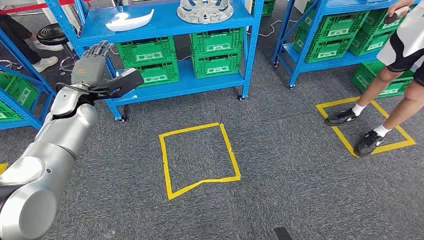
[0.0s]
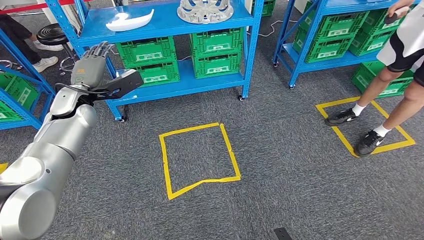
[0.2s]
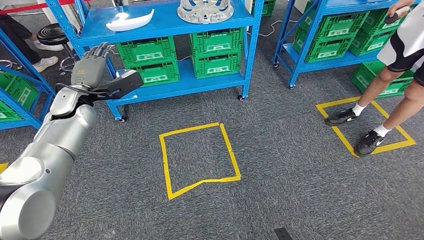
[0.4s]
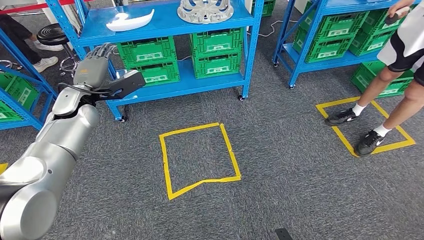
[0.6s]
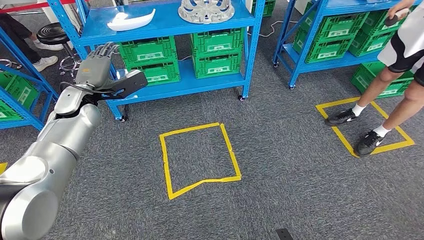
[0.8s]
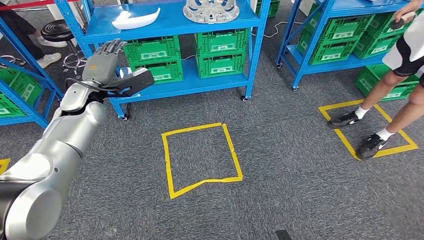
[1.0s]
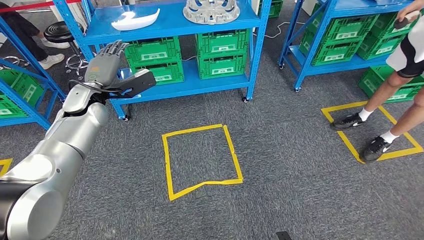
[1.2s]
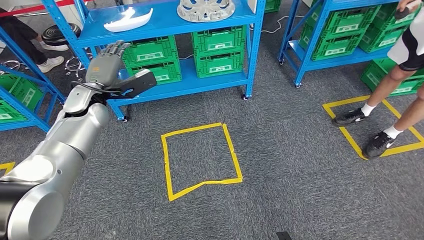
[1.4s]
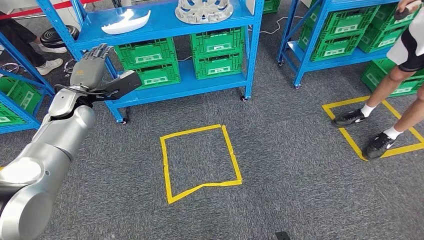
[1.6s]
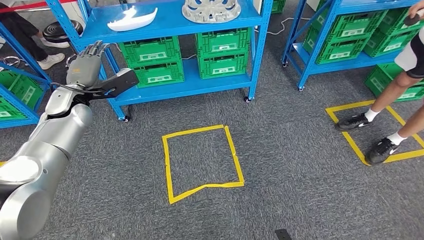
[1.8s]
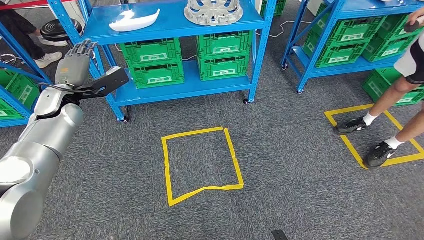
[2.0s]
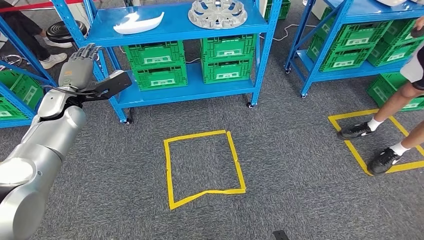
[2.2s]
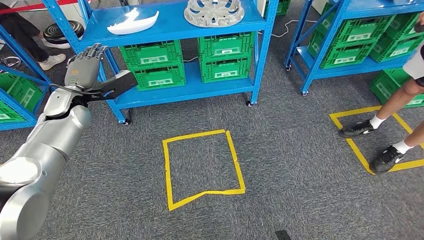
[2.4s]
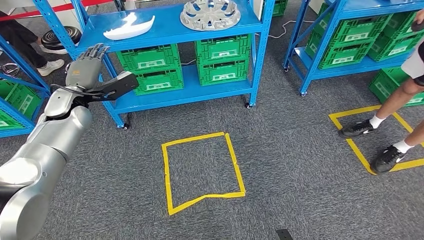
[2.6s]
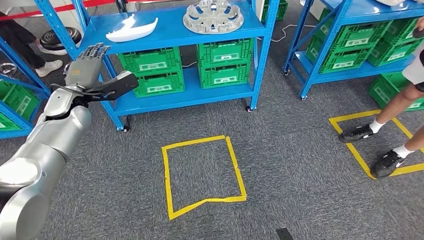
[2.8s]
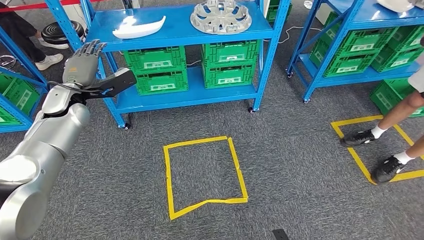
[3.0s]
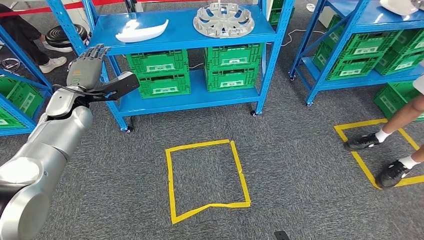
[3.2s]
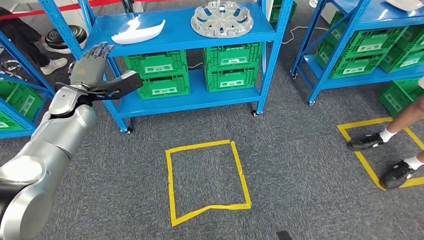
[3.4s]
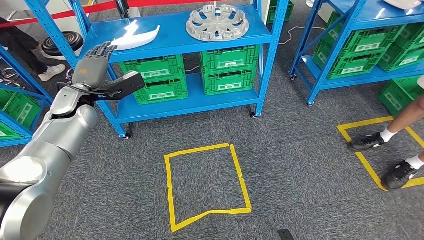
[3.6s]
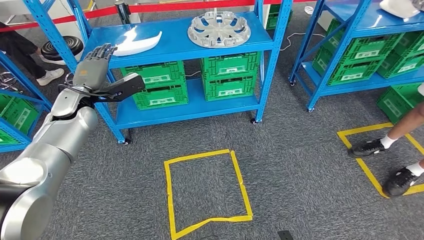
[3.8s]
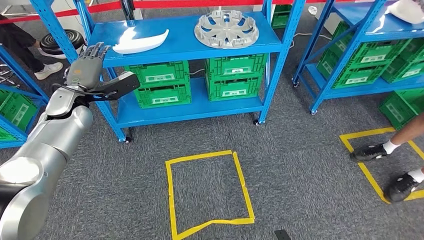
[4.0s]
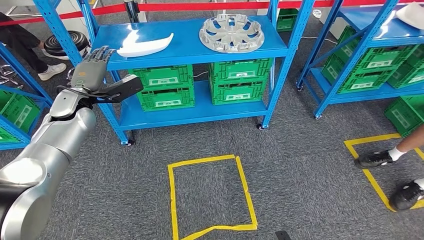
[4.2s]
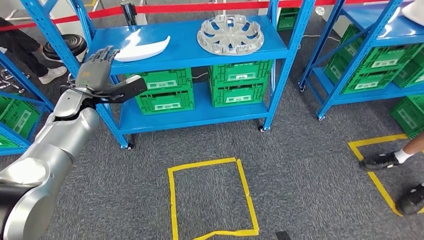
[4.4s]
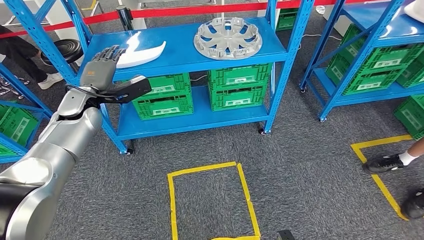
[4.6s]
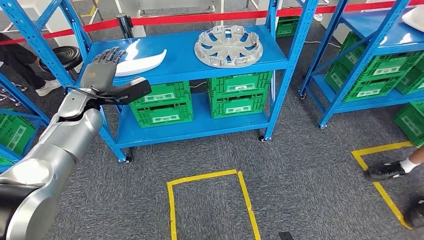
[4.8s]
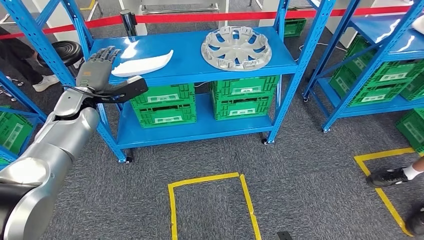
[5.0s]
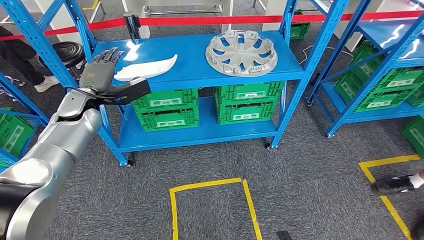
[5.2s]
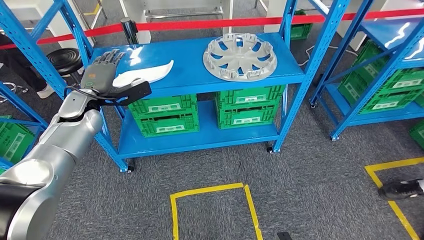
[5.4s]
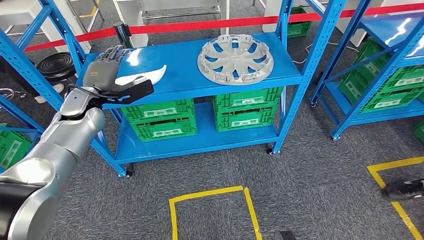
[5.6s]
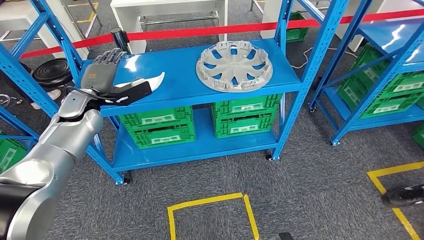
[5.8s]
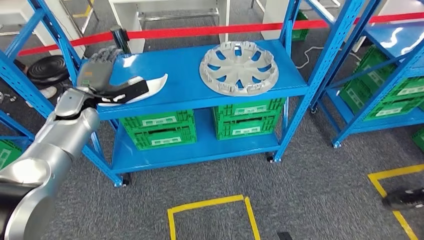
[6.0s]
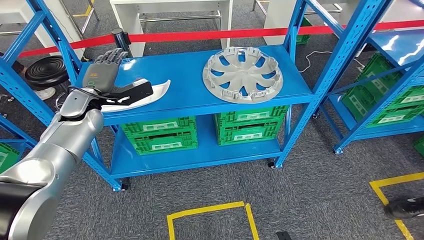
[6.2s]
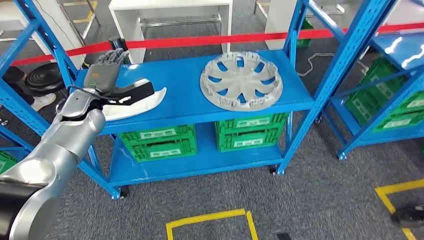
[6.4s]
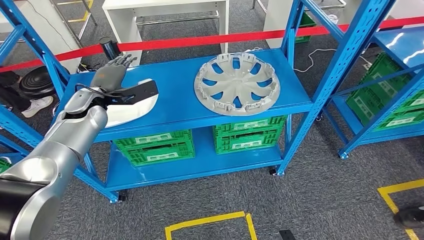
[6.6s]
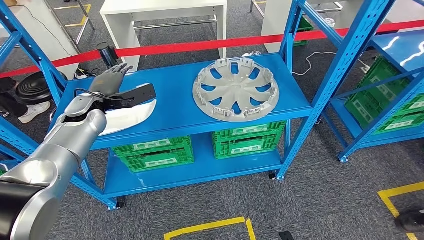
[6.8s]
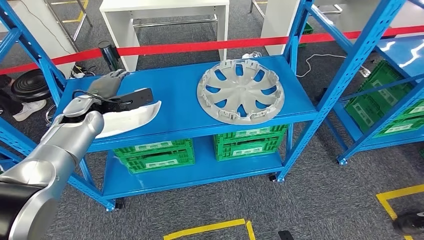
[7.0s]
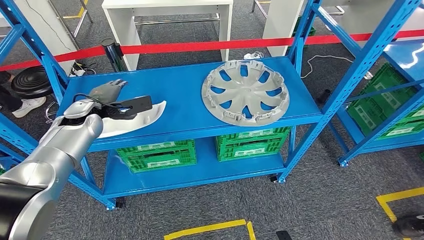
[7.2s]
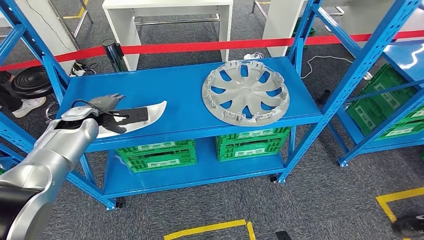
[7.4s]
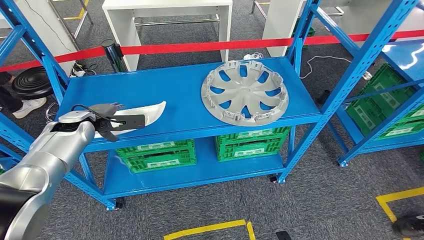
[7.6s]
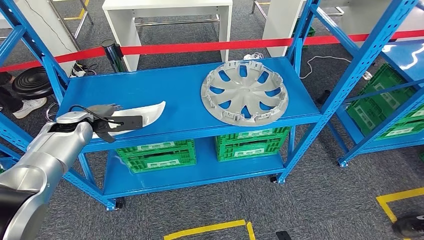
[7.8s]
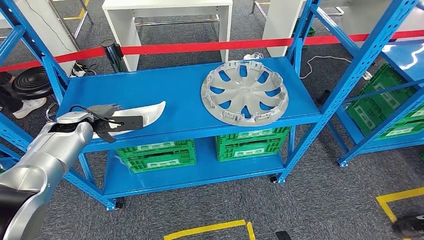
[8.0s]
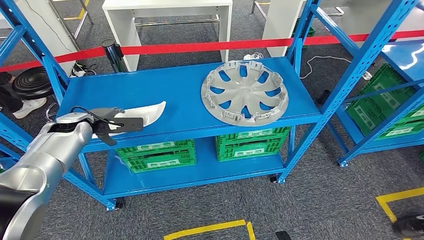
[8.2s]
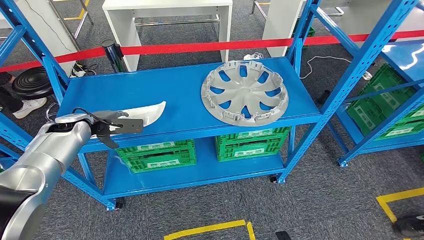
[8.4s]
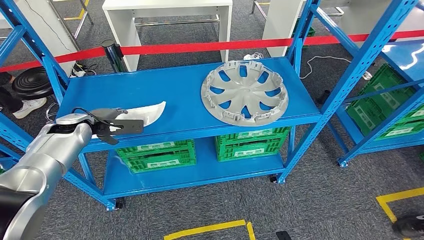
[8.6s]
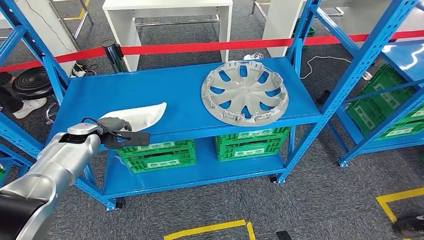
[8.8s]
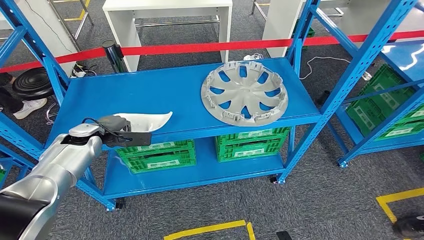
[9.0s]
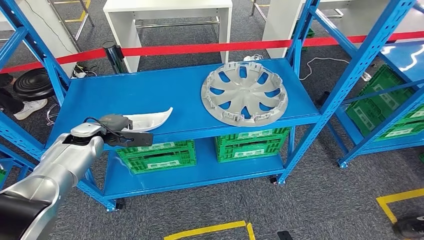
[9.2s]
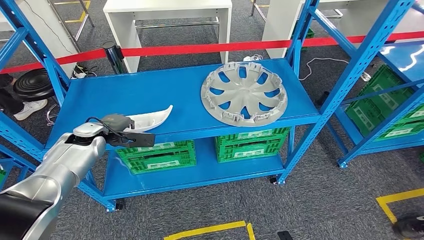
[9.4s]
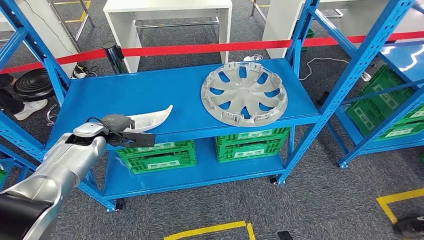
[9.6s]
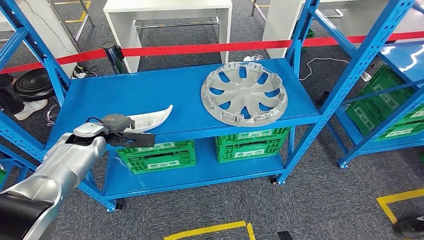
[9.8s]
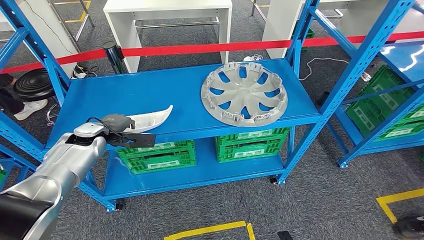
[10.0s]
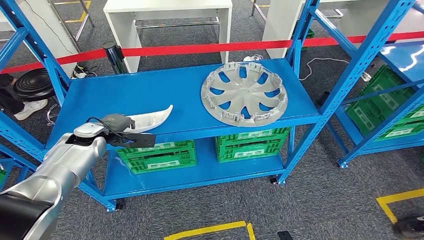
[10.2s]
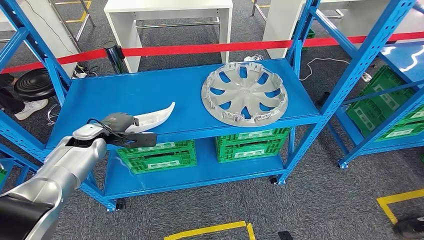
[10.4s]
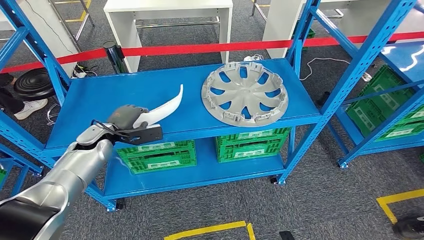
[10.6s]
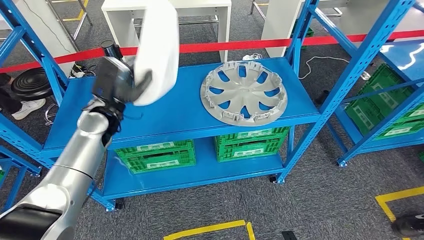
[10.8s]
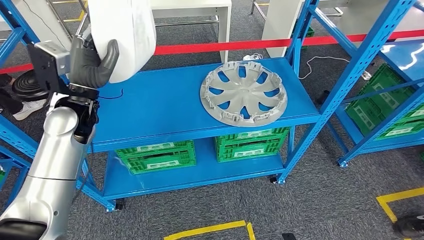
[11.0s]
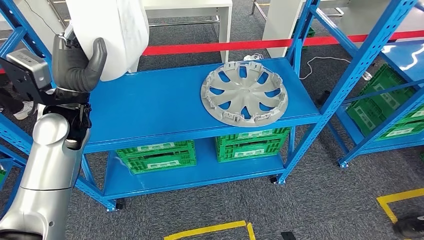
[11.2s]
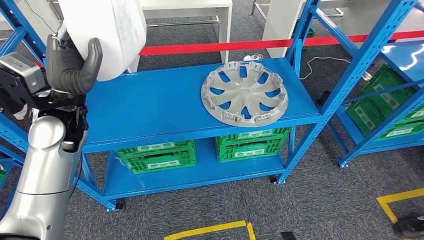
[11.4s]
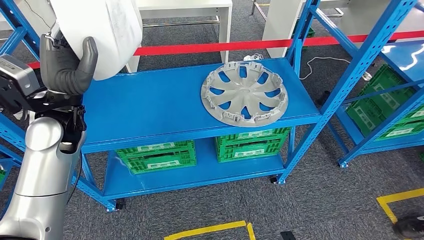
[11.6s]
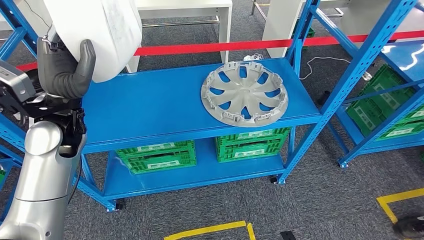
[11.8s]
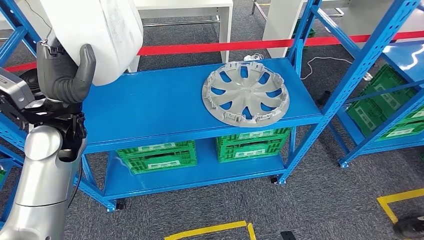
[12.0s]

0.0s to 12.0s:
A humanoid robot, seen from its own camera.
Step, 0.0s to 10.8s: Pick up the small component from the shelf.
7.6s to 10.4s: There are only small adjustments of the hands.

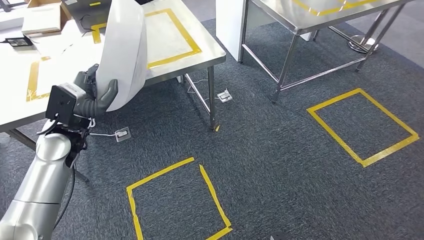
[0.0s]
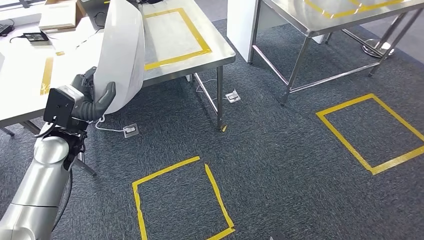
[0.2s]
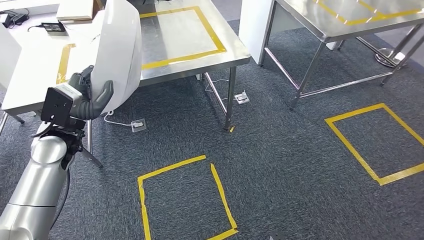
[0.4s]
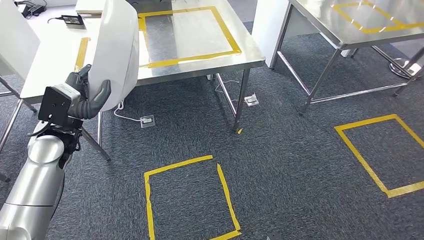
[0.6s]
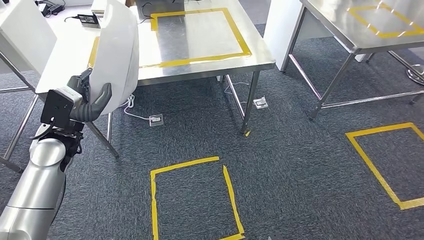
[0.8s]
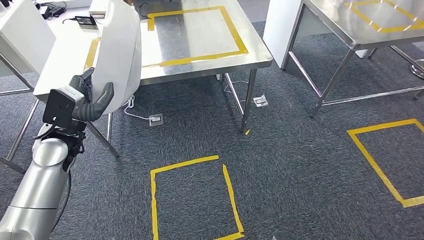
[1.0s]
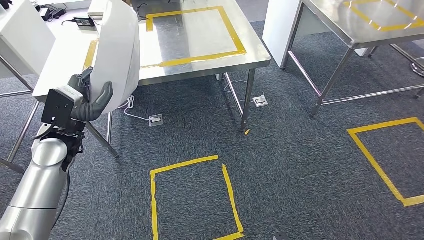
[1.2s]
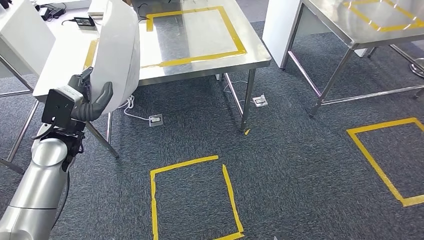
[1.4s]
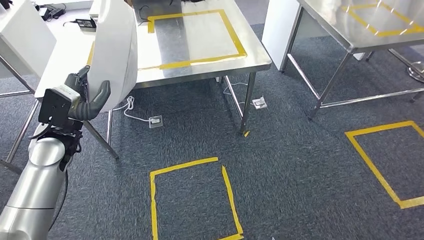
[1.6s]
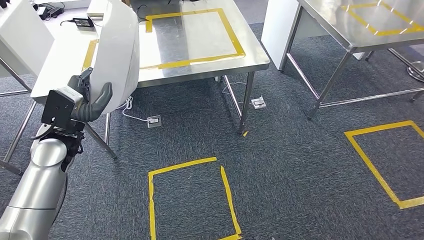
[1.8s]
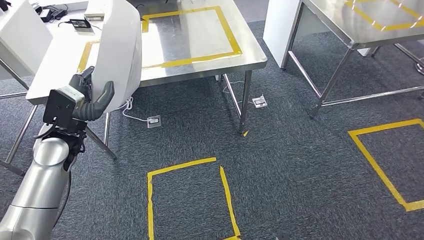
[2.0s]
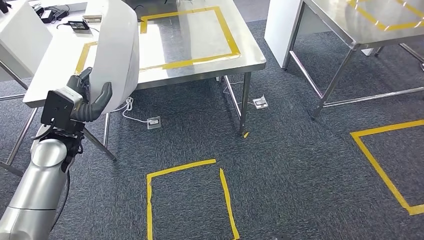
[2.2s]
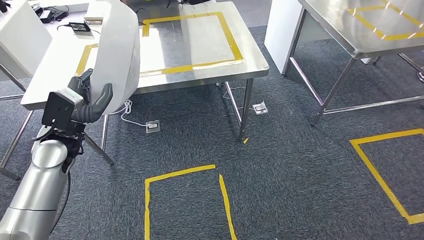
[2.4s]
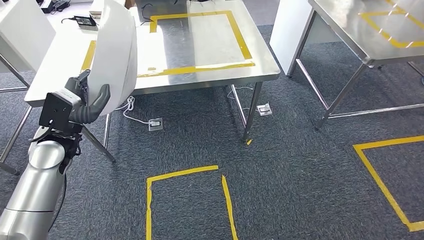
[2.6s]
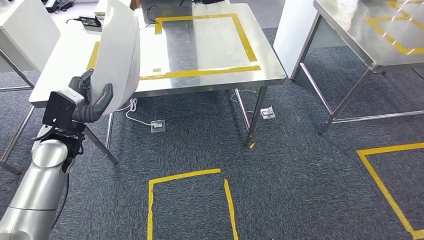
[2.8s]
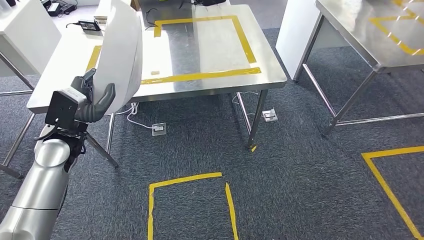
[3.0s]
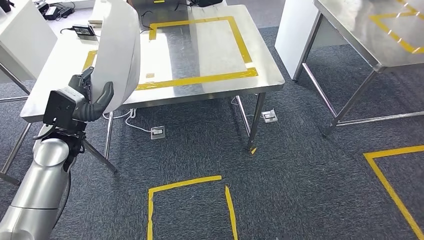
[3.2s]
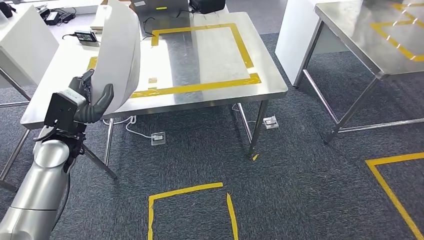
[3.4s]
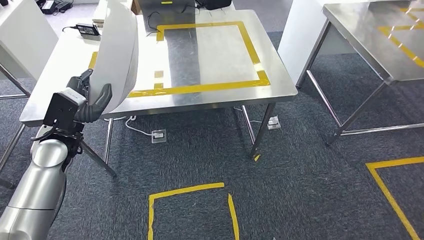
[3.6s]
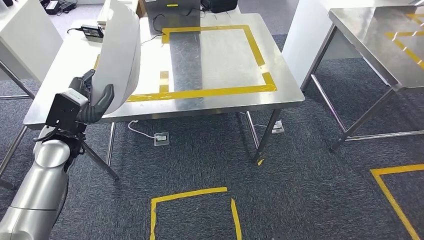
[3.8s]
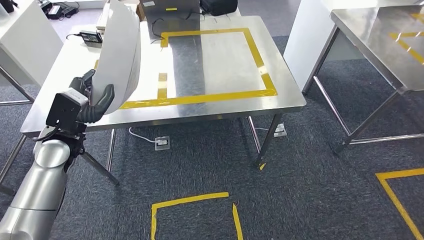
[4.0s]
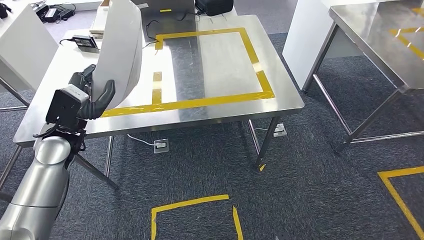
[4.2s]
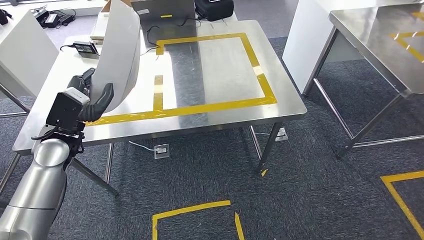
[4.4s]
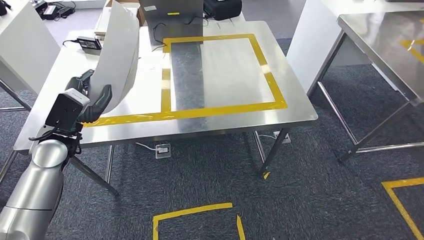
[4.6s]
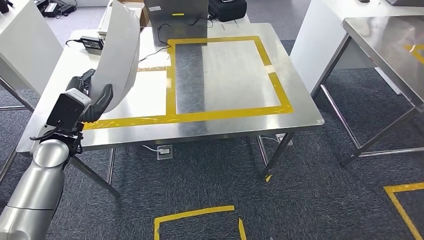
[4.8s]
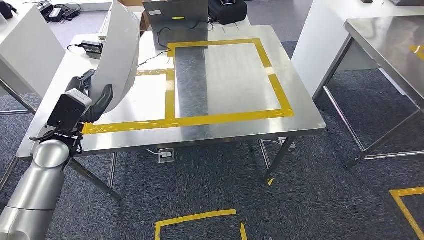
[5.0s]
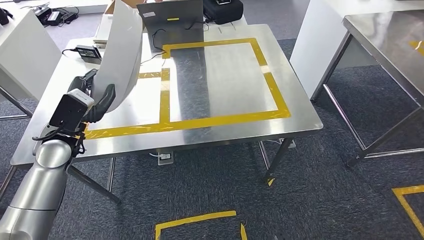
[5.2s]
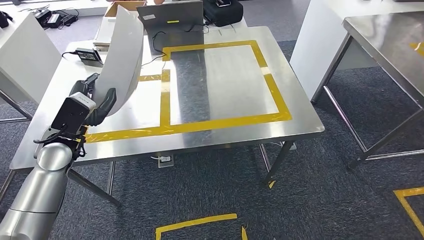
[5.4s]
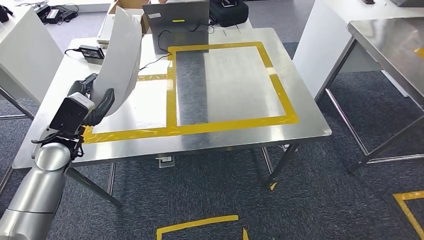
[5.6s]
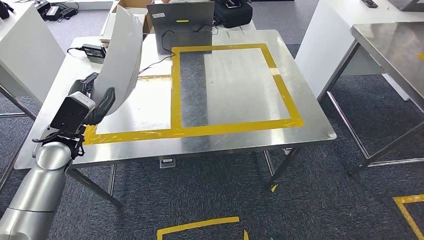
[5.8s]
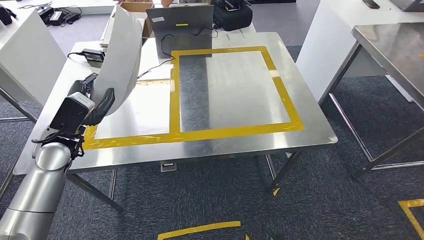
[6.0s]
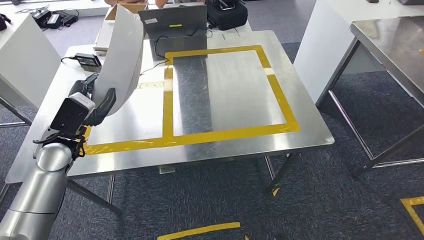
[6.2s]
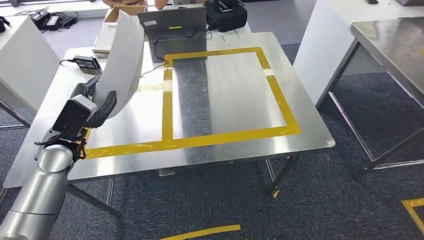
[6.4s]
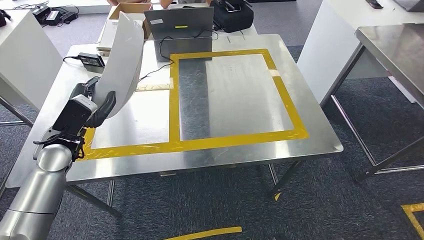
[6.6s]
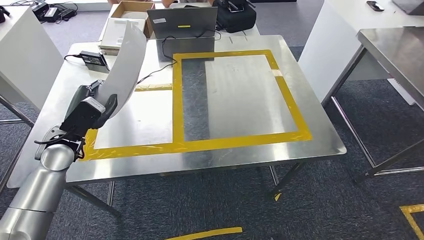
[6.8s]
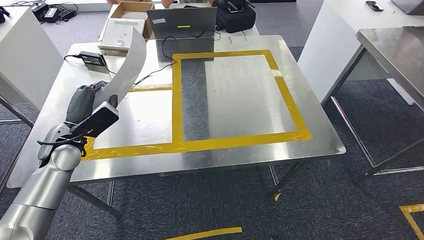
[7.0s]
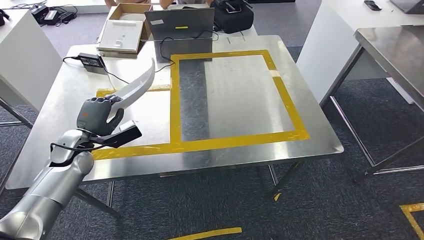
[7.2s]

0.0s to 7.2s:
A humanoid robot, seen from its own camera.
Step, 0.0s to 5.0s: Move the small component to the workbench.
